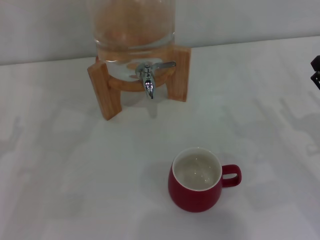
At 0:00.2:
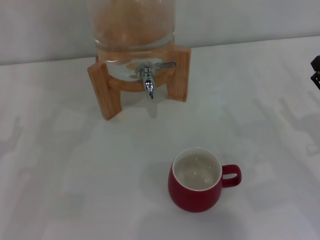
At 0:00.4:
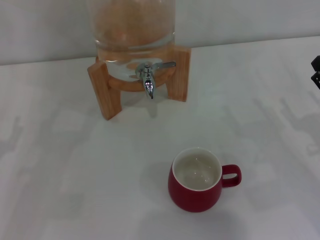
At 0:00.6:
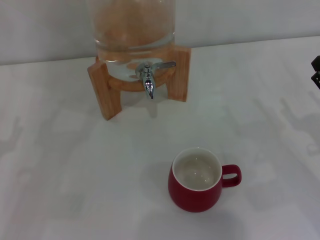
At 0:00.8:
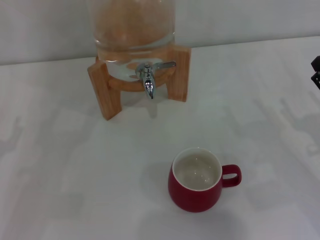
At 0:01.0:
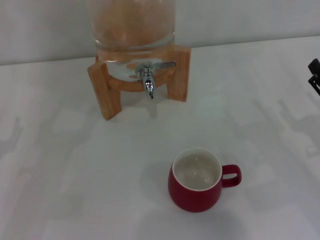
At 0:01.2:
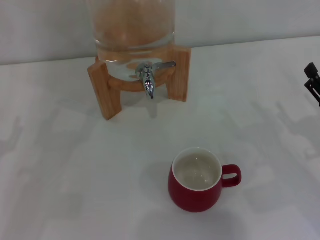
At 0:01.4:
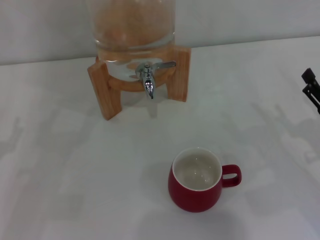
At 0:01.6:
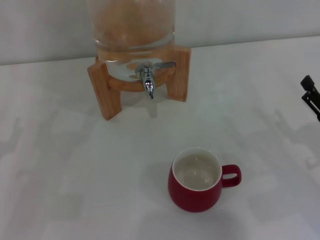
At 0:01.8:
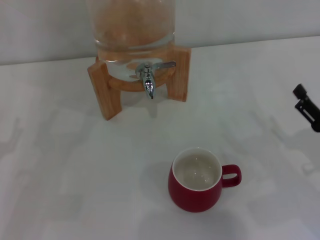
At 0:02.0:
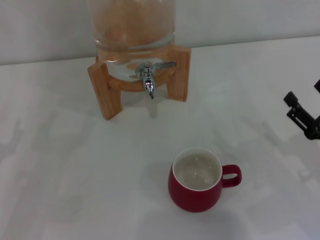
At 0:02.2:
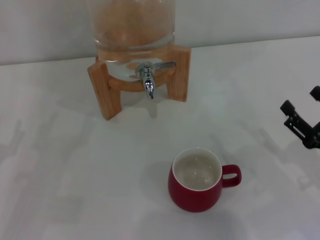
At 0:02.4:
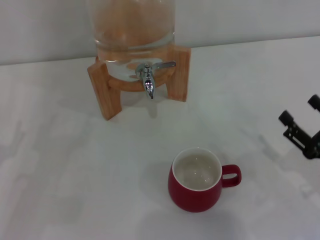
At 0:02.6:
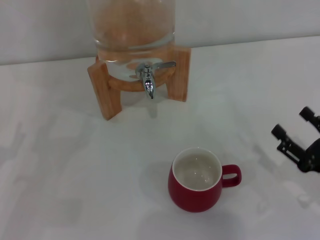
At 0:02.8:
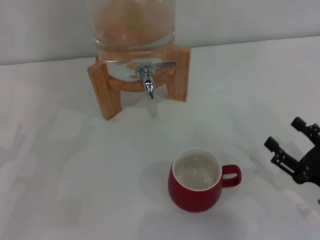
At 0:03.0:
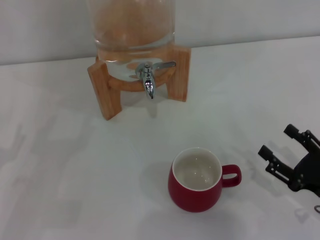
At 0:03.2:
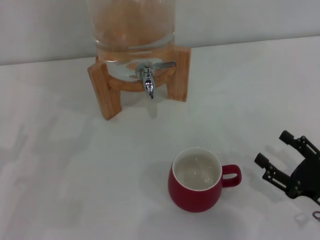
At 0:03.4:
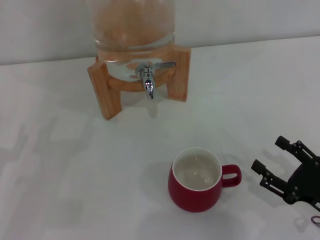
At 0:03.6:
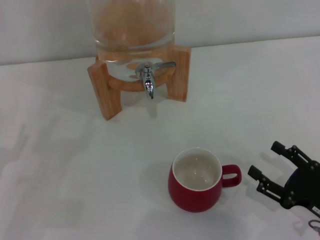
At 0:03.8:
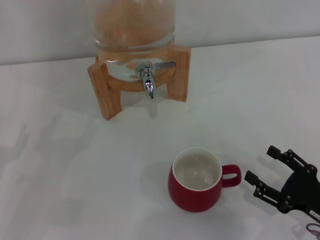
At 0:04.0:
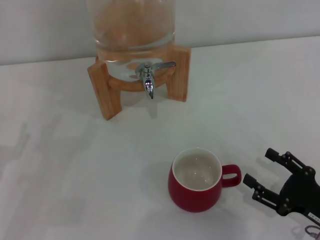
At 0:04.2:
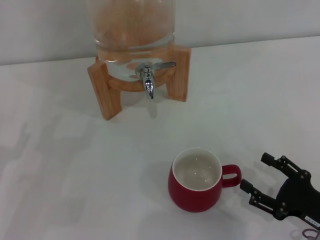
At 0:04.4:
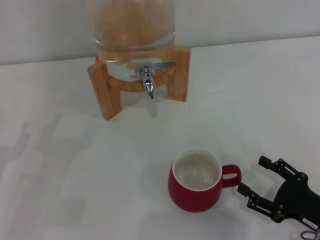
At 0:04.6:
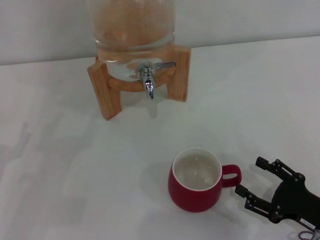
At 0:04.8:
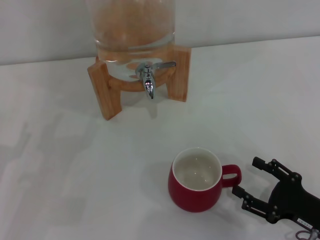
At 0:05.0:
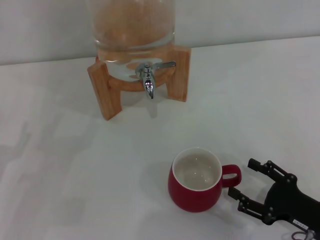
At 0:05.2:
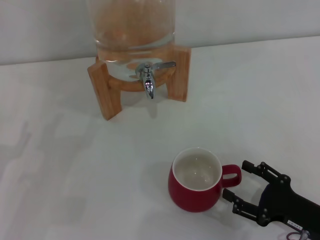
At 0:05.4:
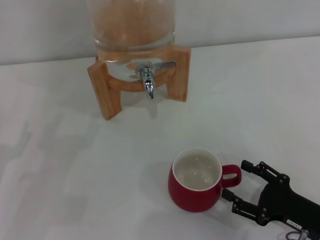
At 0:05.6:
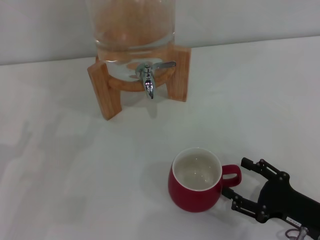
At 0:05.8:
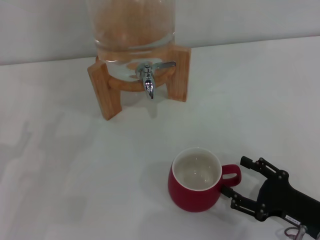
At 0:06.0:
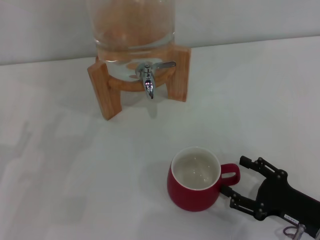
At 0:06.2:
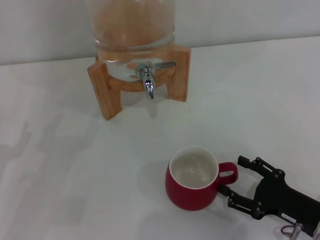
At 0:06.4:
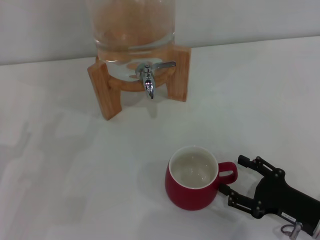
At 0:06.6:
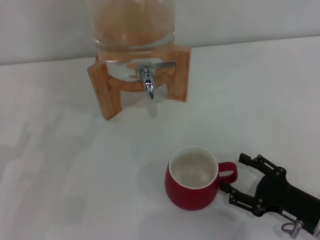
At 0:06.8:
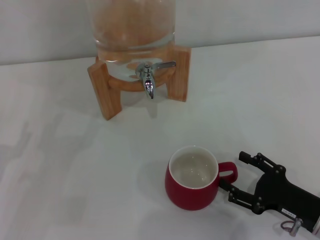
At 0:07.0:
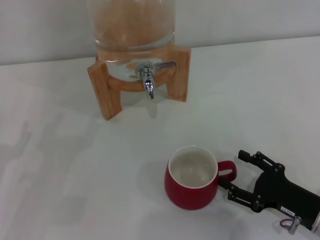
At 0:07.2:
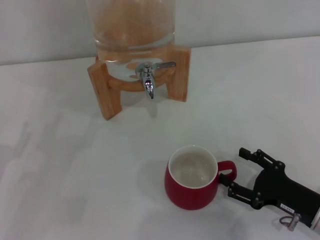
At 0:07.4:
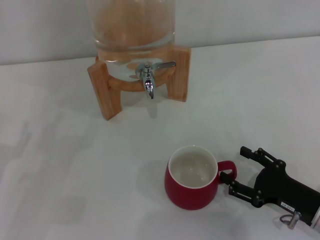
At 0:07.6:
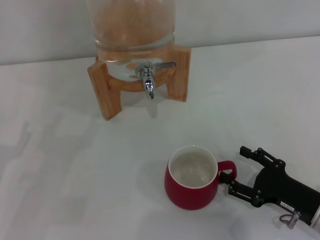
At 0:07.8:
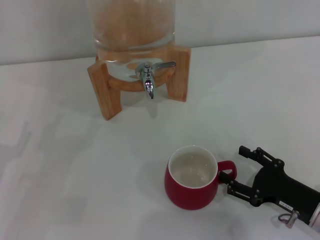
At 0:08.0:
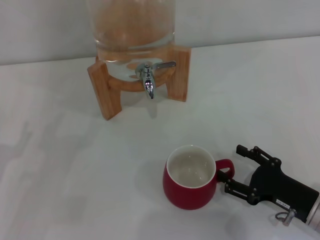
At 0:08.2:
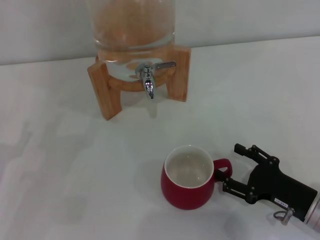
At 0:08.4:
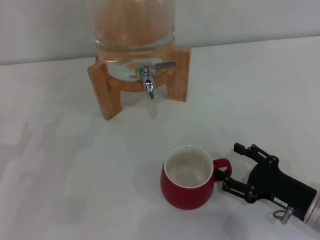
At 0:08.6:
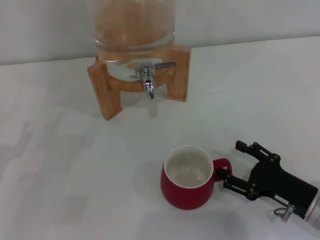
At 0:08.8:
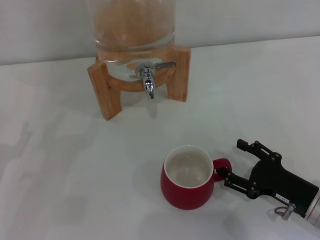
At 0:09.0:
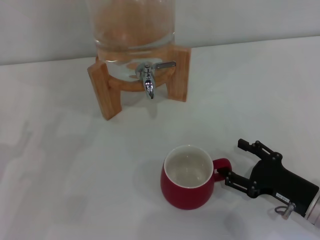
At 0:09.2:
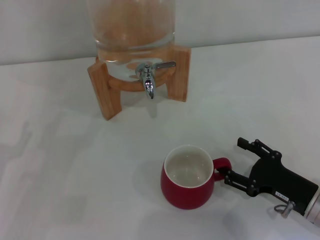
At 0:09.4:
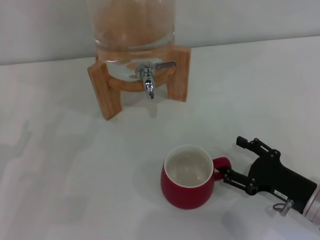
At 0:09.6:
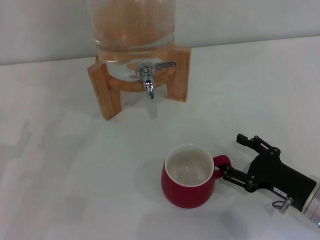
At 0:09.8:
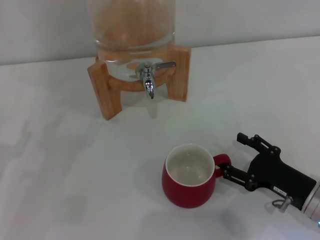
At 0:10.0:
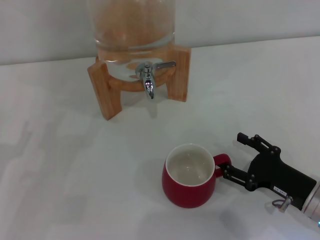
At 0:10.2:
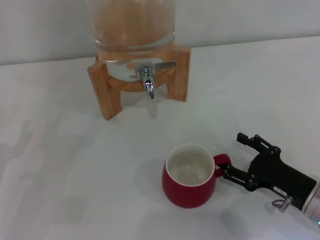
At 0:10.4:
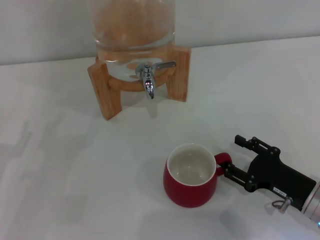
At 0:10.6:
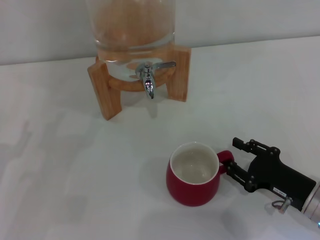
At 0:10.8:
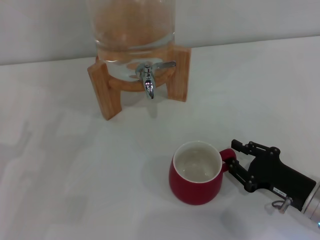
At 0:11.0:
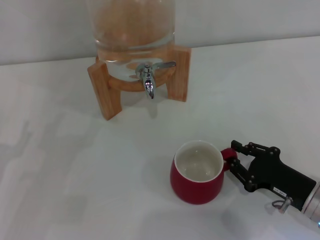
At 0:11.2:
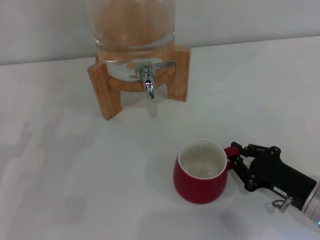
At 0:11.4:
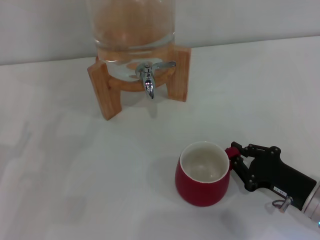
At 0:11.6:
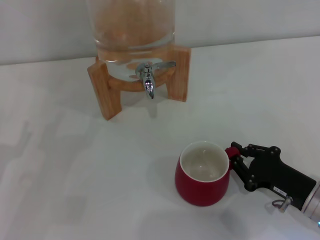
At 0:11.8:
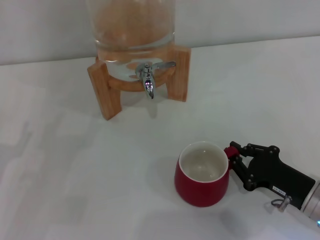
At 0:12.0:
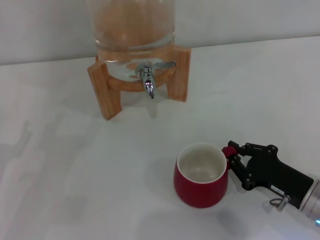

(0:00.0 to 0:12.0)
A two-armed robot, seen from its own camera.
Task of the whole recording: the right gripper pick up the red cup and place it horizontally under the faucet, the left gripper turn on the faucet to fill the cup, and then turn off the faucet.
0:01.6 - 0:03.0: The right gripper shifts approximately 5 cm backward.
0:03.0 - 0:07.6: The grippers stay close to where they were, moving slightly.
0:07.6 - 0:09.0: Both grippers stay put.
0:09.0 - 0:10.4: Both grippers stay about where they are.
0:10.4 - 0:12.0: The right gripper closes.

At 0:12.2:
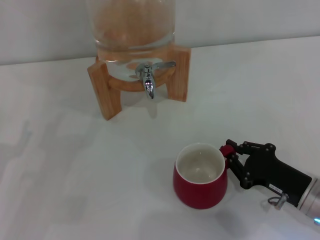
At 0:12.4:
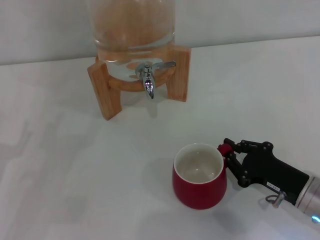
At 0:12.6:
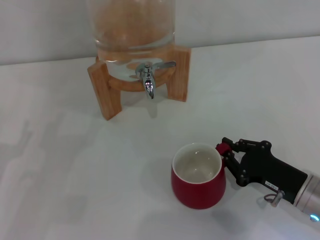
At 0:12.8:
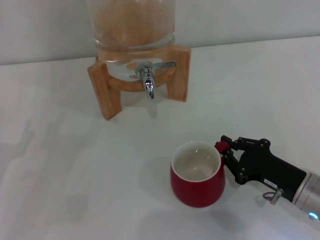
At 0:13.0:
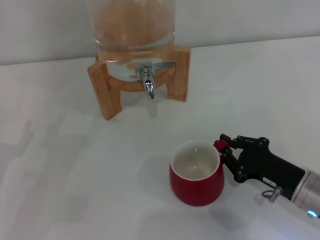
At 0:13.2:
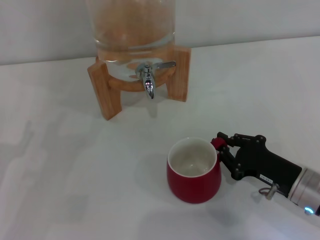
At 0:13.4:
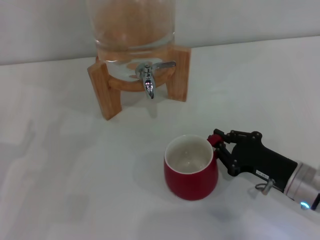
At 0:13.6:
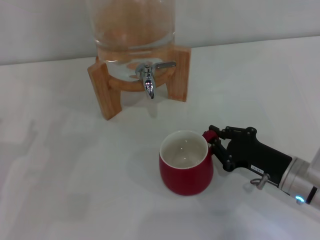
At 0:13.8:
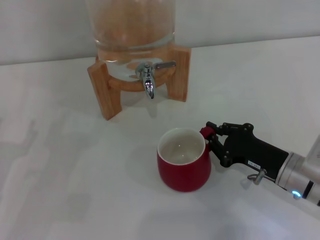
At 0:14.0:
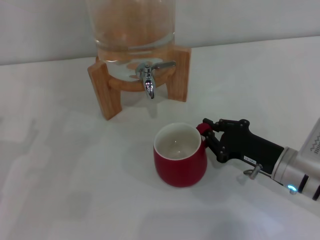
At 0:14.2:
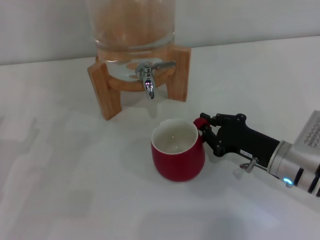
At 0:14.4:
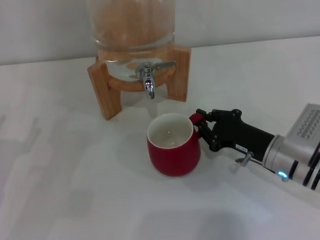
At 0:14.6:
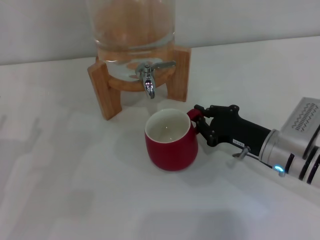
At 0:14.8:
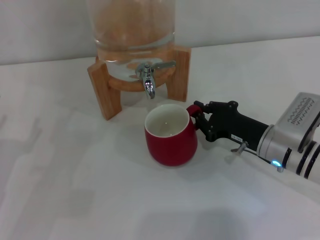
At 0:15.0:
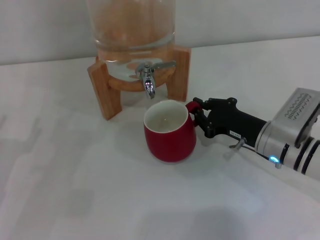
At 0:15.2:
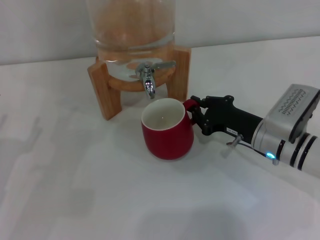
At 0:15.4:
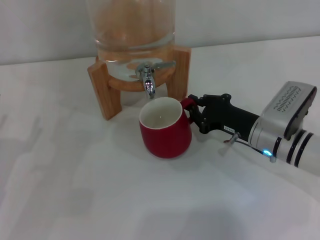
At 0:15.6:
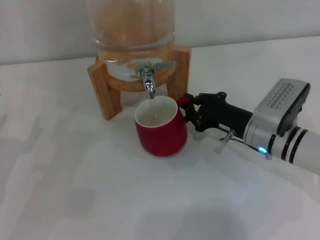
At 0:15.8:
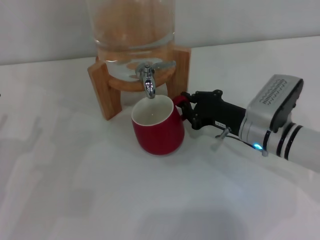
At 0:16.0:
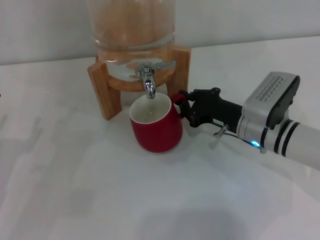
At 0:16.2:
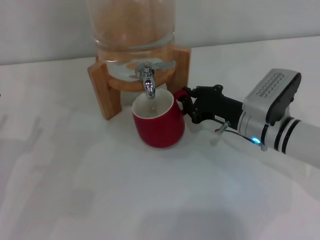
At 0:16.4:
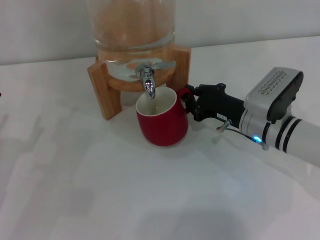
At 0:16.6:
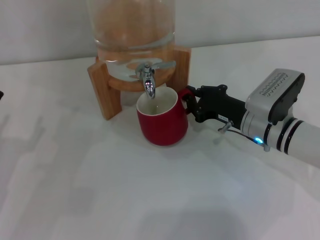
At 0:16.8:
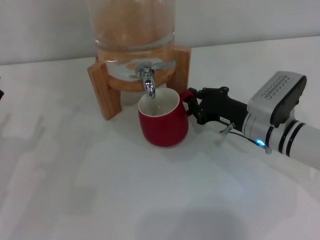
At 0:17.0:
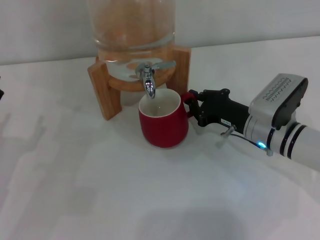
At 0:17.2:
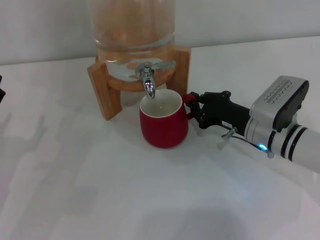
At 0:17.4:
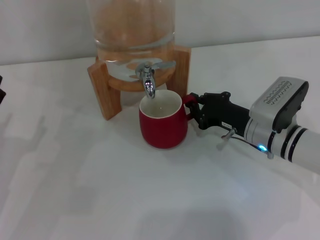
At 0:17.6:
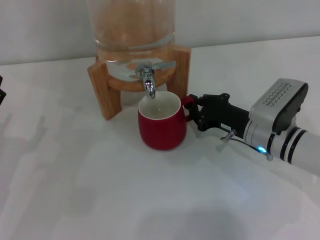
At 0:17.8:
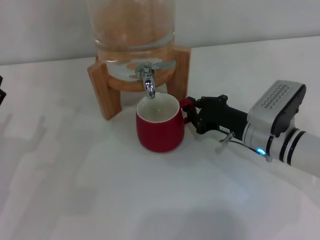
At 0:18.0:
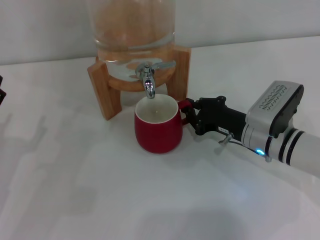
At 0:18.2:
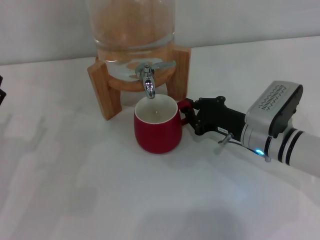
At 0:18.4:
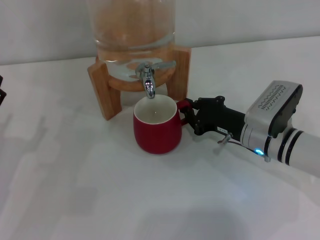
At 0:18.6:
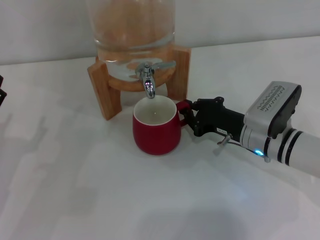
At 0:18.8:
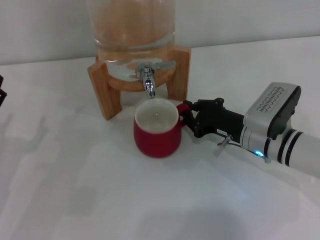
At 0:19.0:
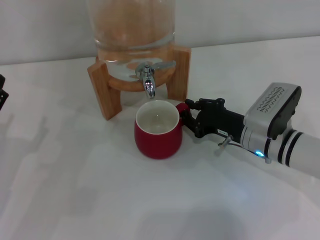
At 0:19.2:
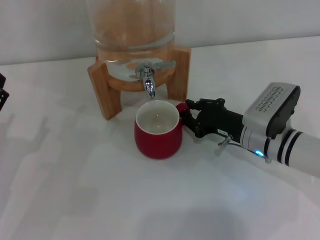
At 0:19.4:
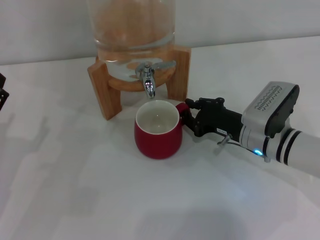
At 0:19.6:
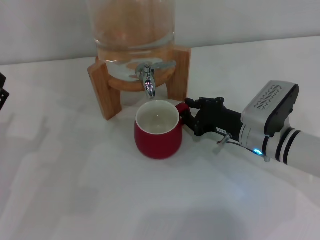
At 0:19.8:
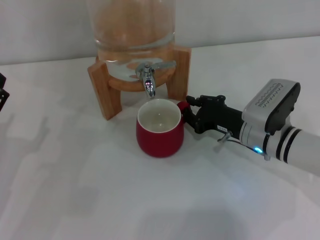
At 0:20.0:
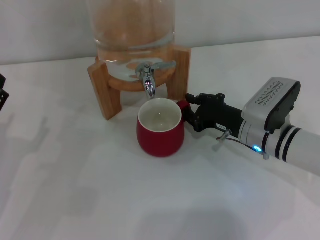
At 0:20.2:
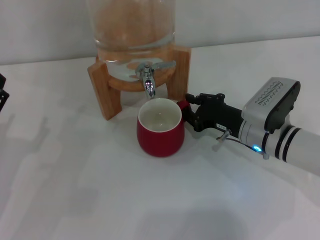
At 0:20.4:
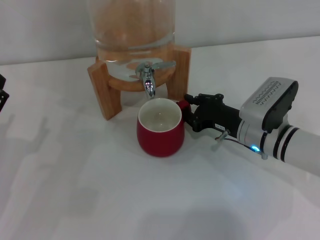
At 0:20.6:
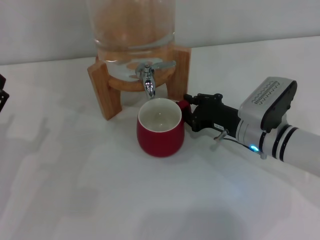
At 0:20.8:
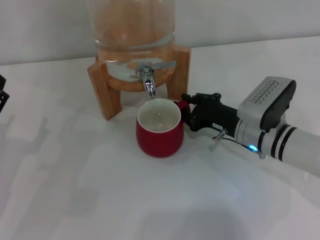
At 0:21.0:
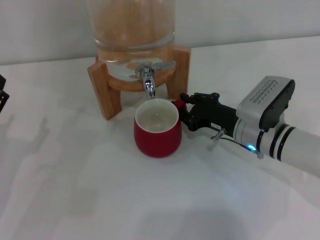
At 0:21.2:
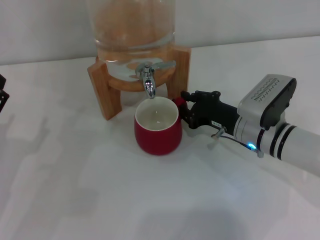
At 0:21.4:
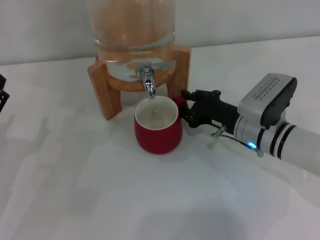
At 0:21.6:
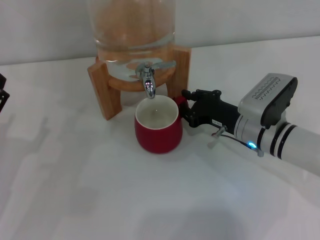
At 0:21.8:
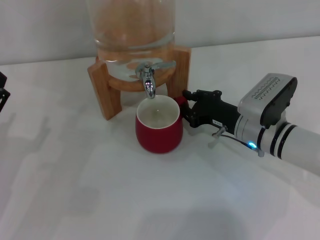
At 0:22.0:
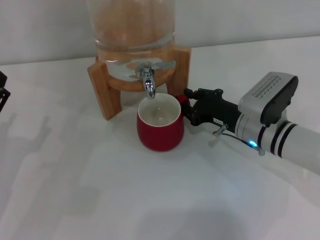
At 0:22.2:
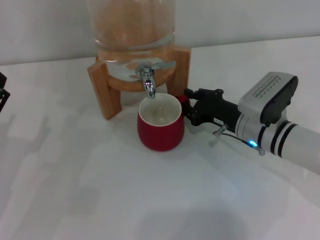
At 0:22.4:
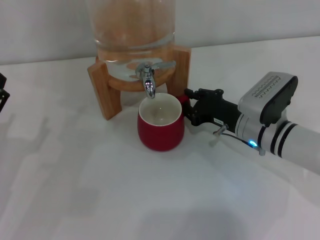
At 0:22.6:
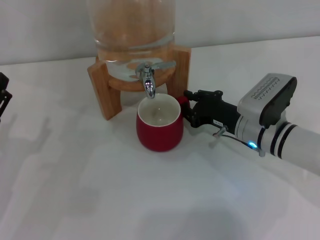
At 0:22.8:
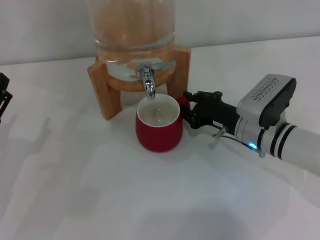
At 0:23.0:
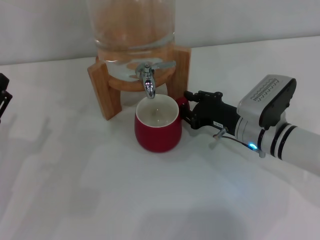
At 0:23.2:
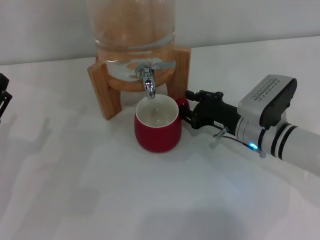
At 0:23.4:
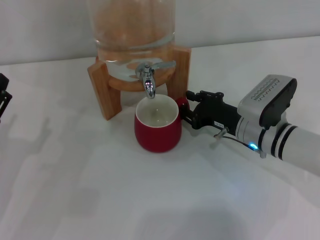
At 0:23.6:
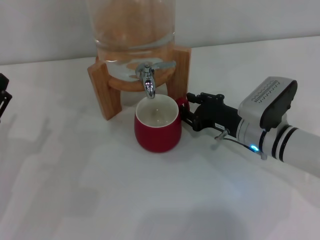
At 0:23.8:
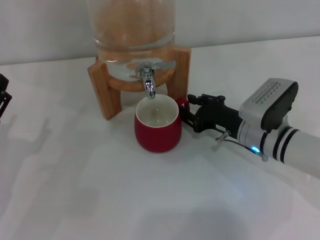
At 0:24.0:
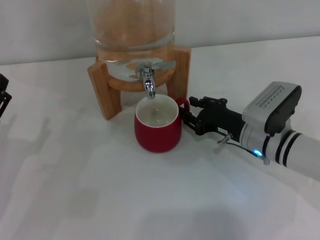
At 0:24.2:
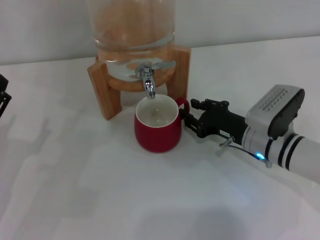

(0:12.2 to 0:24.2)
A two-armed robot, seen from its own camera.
Task of the whole recording: the right gripper pick up the red cup and place it horizontally under the faucet, the left gripper turn on the faucet to fill the cup, and then turn off the faucet.
0:12.2 - 0:13.8: The grippers make only small movements.
0:13.8 - 0:15.2: The right gripper shifts some 5 cm forward.
0:15.2 - 0:18.2: The grippers make only small movements.
0:18.2 - 0:21.2: Both grippers stay put.
0:21.2 - 0:22.6: The two grippers keep their place.
0:22.6 - 0:24.2: There are only small adjustments of the grippers.
